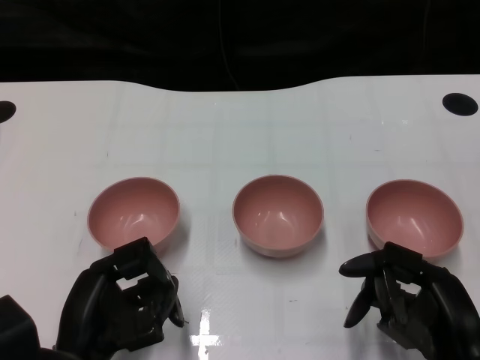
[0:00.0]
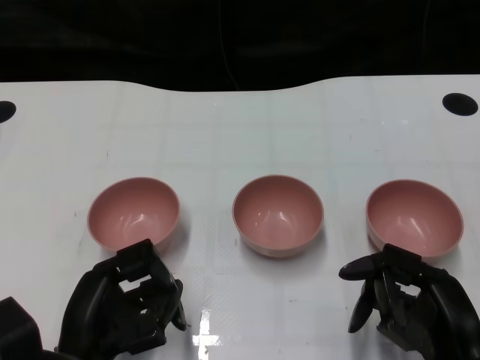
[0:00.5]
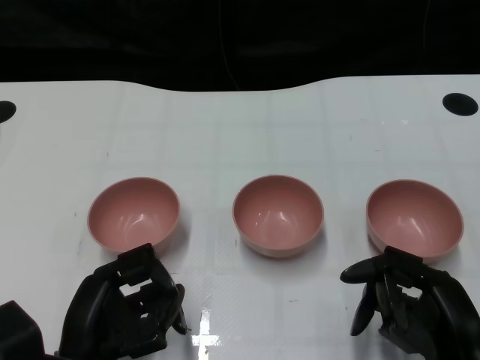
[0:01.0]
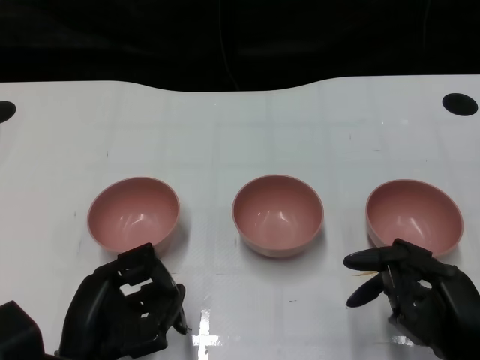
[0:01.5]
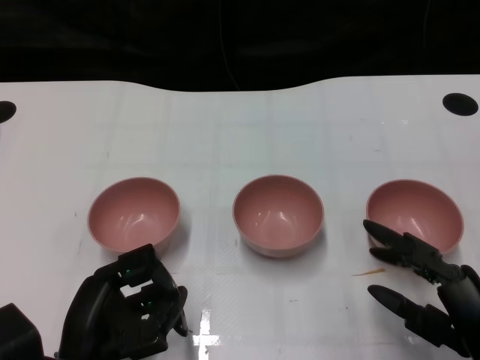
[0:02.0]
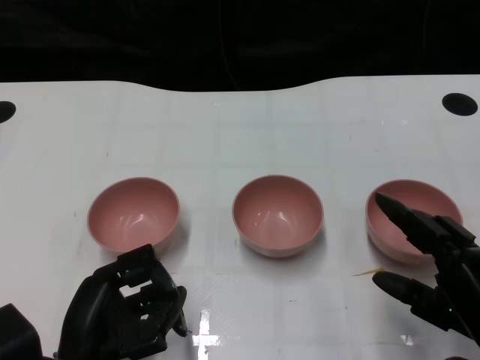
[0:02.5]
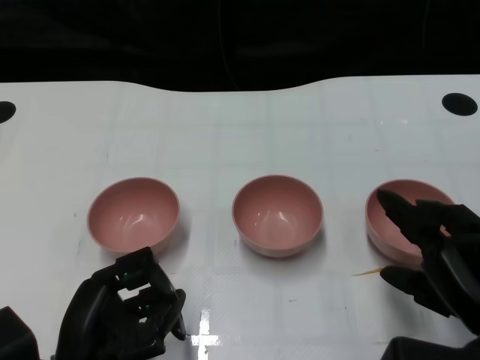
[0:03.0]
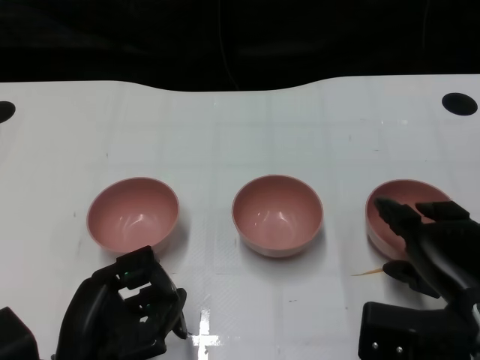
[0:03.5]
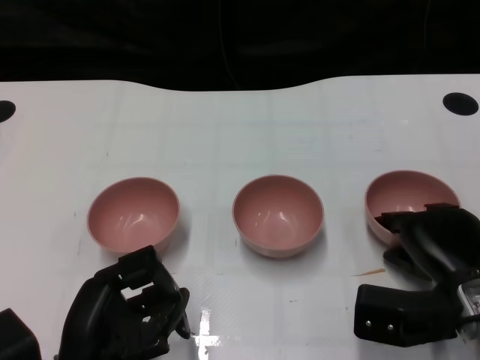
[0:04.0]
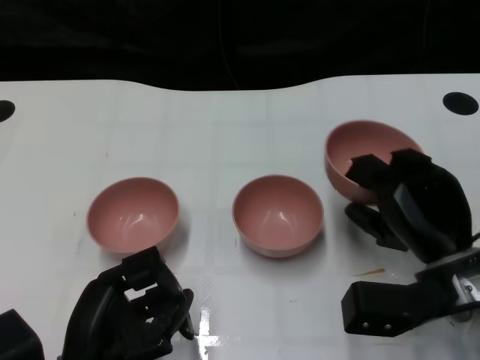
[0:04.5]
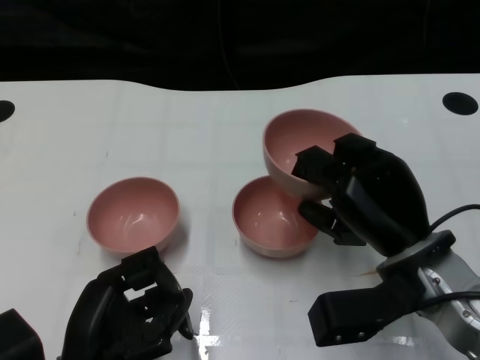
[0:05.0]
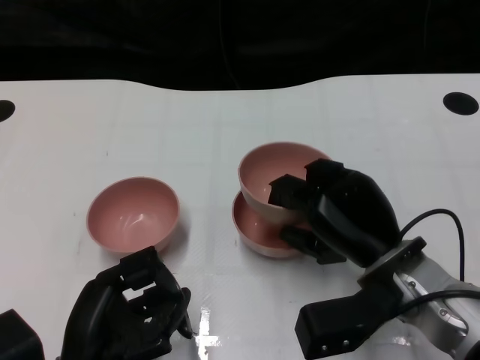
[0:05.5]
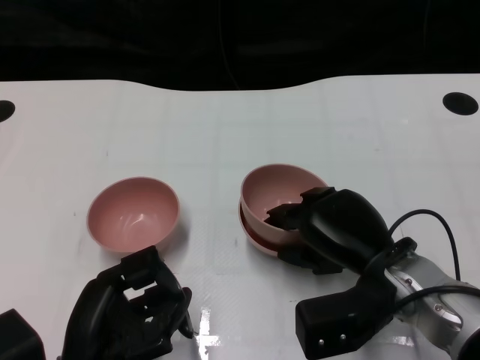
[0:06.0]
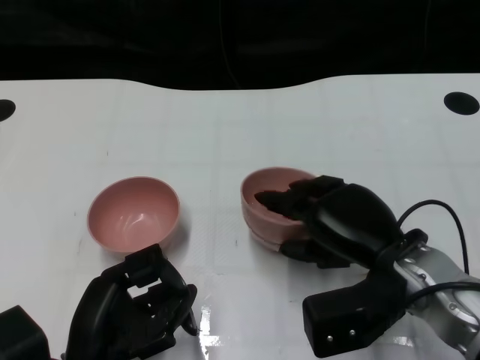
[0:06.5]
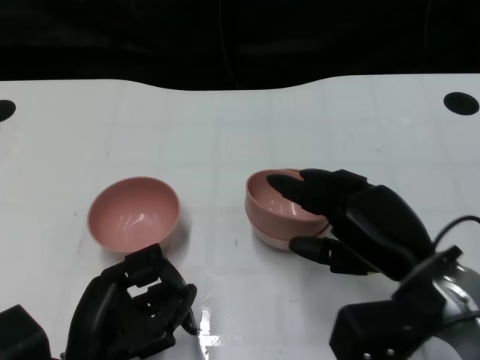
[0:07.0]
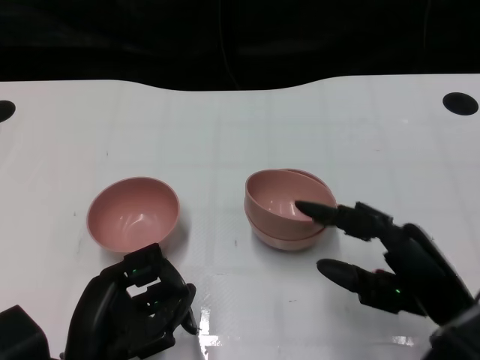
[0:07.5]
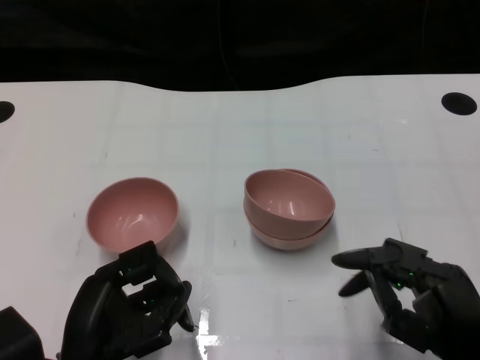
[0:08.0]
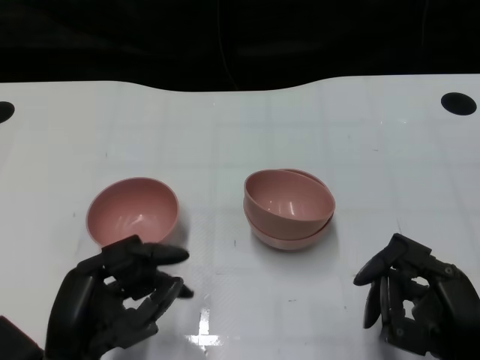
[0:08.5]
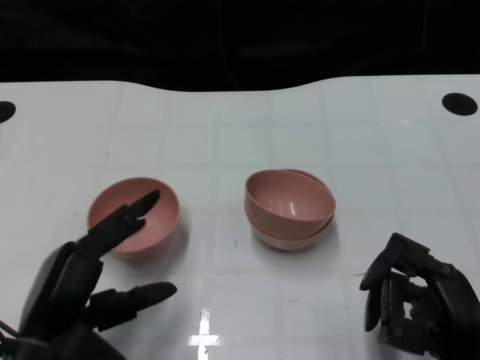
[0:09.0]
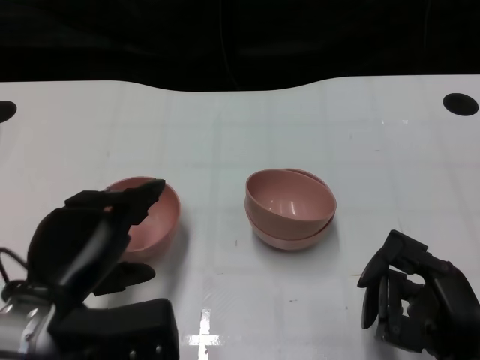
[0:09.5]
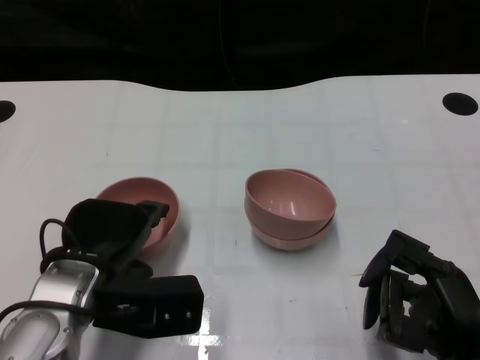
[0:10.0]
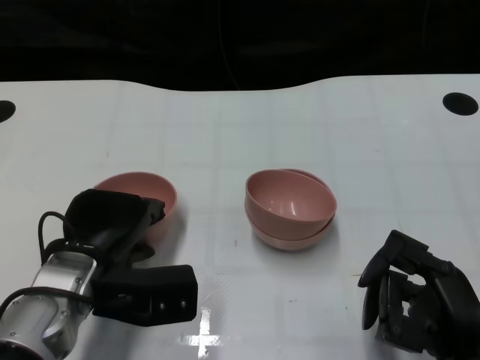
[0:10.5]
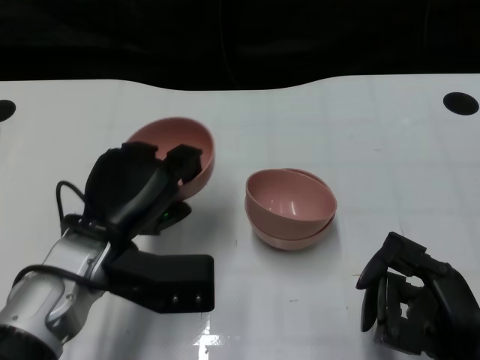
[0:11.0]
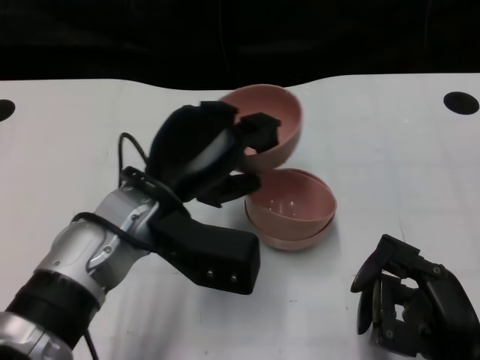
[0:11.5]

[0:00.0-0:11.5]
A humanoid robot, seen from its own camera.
Task of the whole recording: Pick up the bowl on one side of the table and place it on top of the middle bowl, then pick up the bowl on the other side of the table and place it on top of the middle bowls.
Step, 0:01.5 to 0:04.0: Grasp the bowl on the right with the right gripper.
Step, 0:04.5 to 0:07.0: Place the bowl on the right onto the bowl in the middle with right gripper.
Step, 0:07.5 to 0:10.0: Grasp the bowl on the left with the left gripper.
0:02.0 to 0:04.0: The right hand heads forward, covering about 10 cm.
0:04.0 to 0:06.0: The right hand heads to the left, covering approximately 5 cm.
0:06.0 to 0:07.5: The right hand moves backward and to the right, about 10 cm.
0:07.5 to 0:09.5: The right hand changes place by approximately 5 cm. The left hand heads upward, covering approximately 5 cm.
0:09.5 to 0:11.5: The left hand heads to the right and forward, covering about 15 cm.

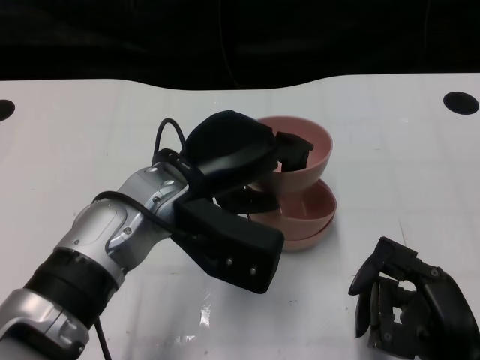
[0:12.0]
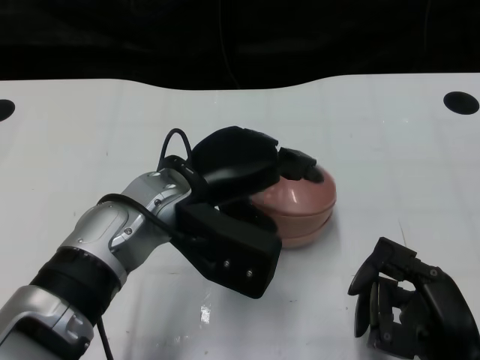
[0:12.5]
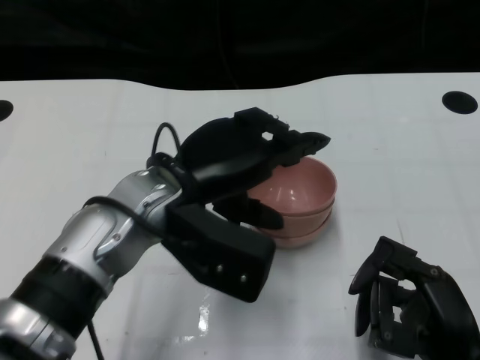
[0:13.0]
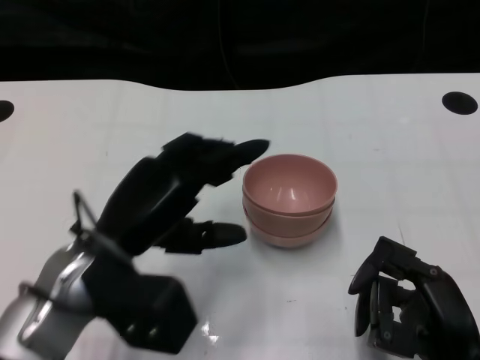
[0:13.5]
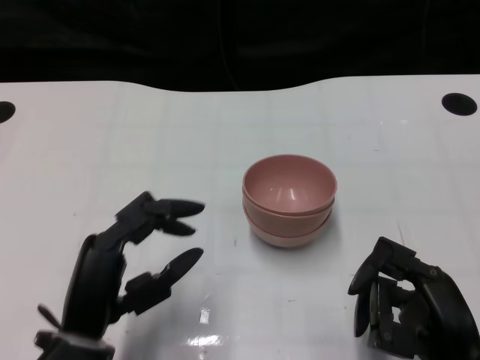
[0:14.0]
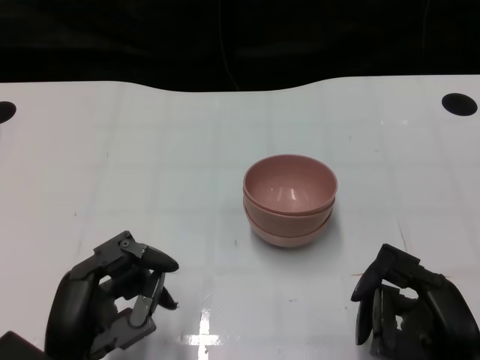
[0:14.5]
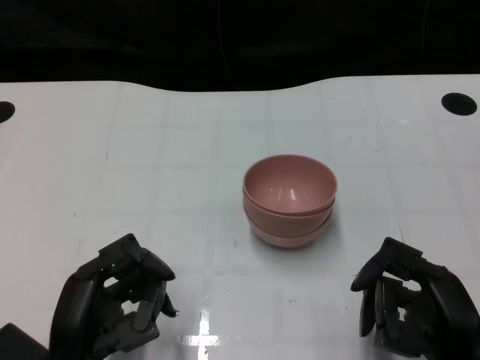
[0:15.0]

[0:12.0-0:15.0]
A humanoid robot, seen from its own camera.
Task of the whole recording: Pick up the bowl on one side of the table and place it on top of the middle bowl, then pick up the bowl on the other side of the table and place it on top of the middle bowls.
0:12.0 to 0:13.5: The left hand goes approximately 5 cm to the left.
0:13.5 to 0:15.0: The left hand goes some 10 cm backward and downward.

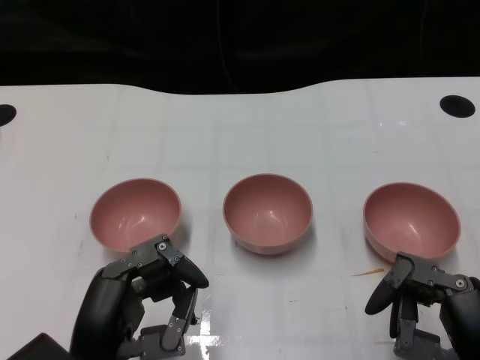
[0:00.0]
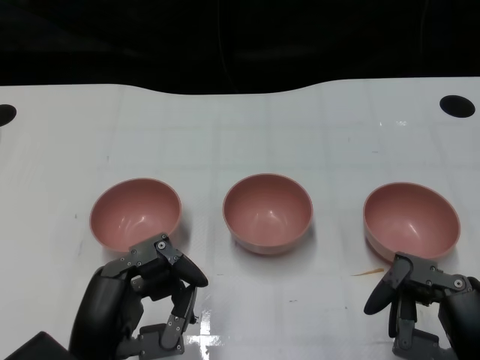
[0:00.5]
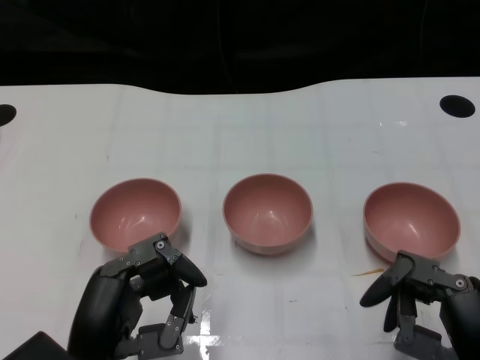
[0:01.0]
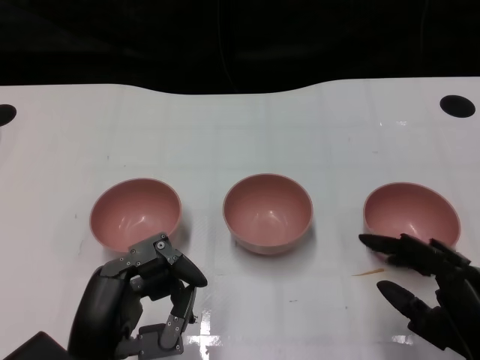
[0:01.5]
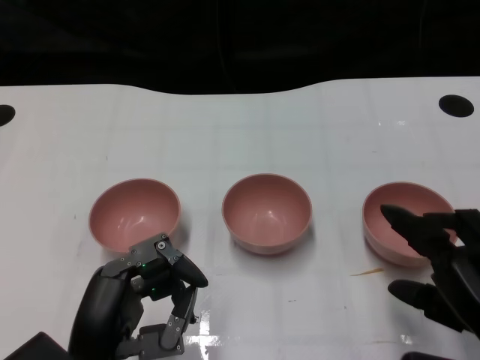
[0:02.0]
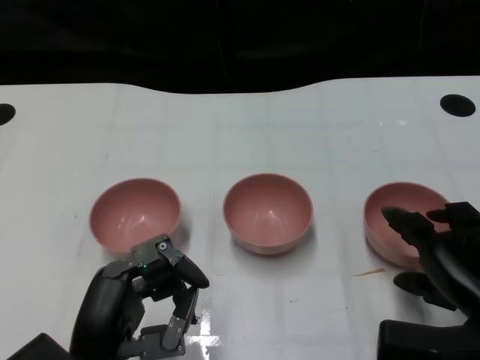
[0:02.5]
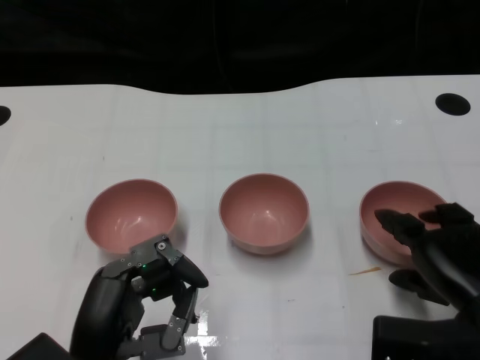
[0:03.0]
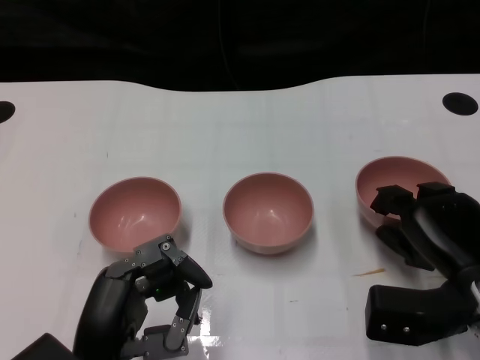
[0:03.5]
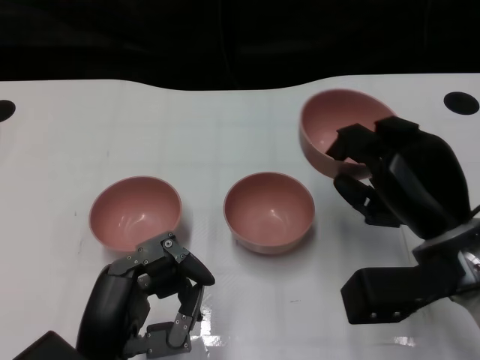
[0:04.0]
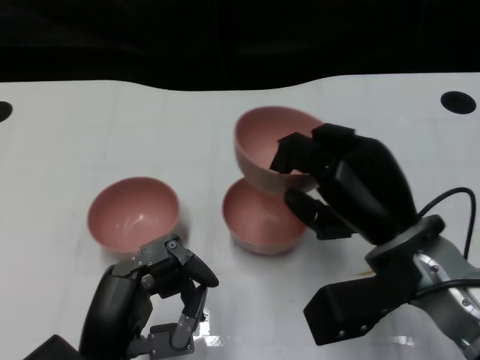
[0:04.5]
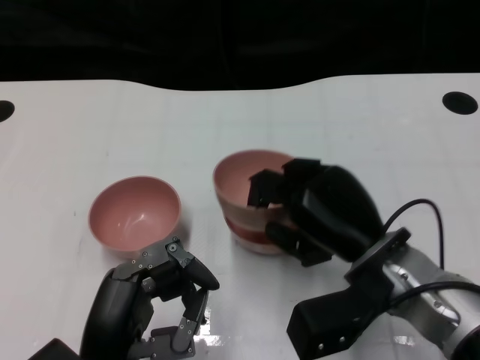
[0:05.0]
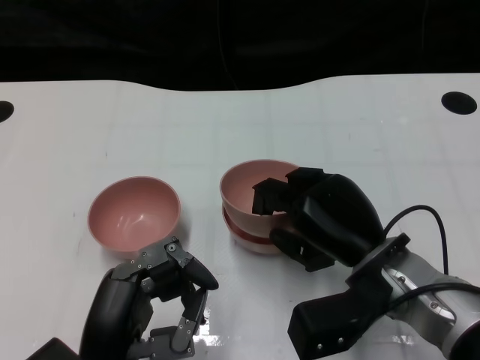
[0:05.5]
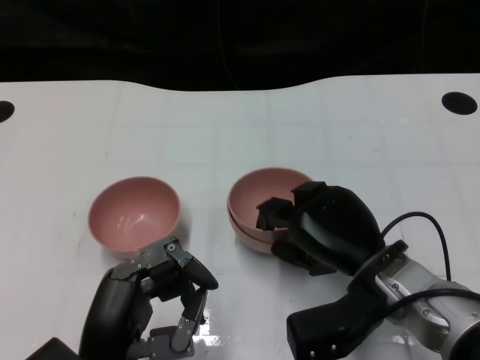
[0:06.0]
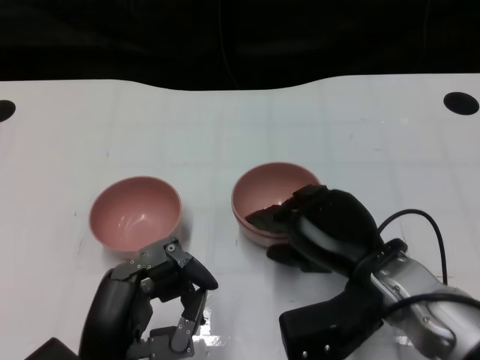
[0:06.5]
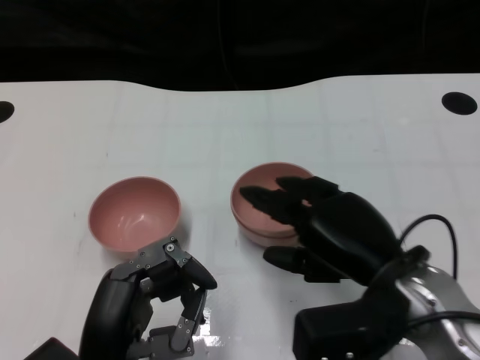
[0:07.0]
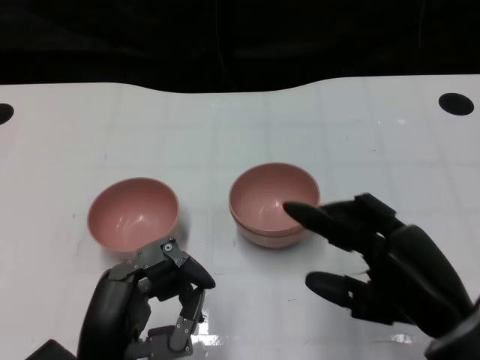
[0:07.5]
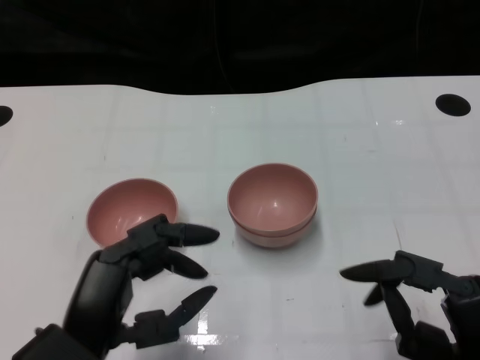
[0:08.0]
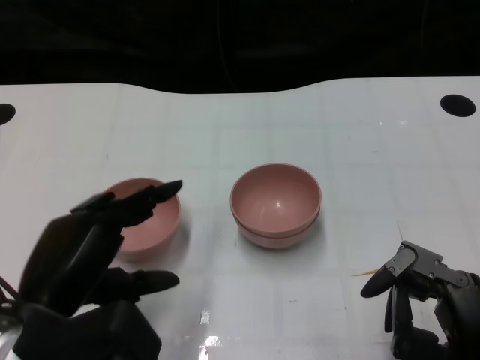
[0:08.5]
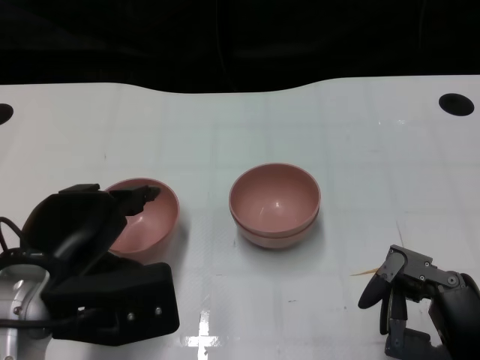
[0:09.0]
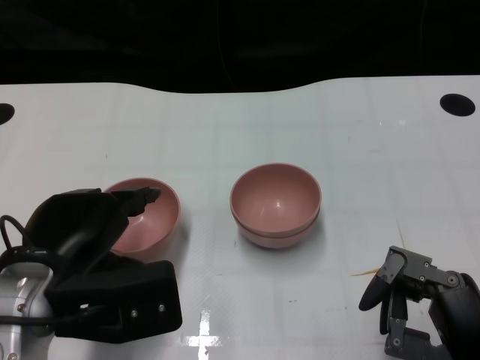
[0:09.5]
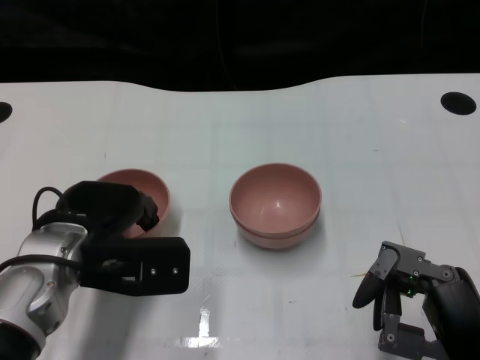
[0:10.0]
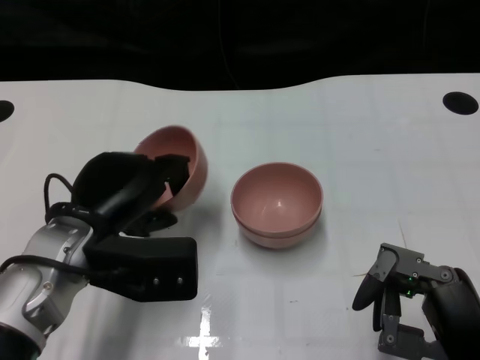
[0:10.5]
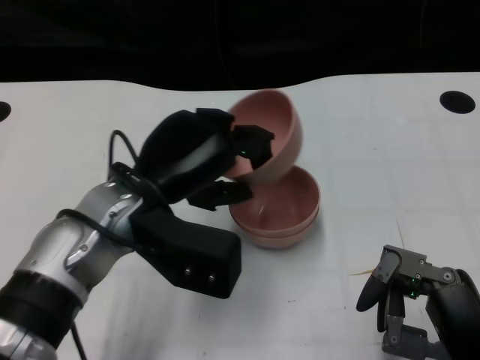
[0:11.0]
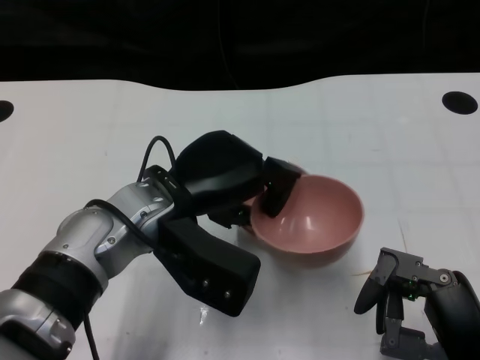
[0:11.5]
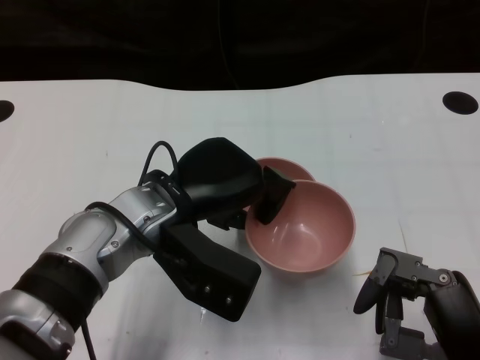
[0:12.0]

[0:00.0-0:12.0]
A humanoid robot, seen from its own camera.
Task of the whole recording: Pick up the bowl on one side of the table and place it on top of the middle bowl, then pick up the bowl on the other side of the table and place it on top of the middle bowls.
Step, 0:01.0 to 0:03.5: Grasp the bowl on the right with the right gripper.
Step, 0:04.0 to 0:07.0: Place the bowl on the right onto the bowl in the middle with right gripper.
Step, 0:07.5 to 0:10.0: Grasp the bowl on the left with the left gripper.
0:02.0 to 0:04.0: The right hand goes roughly 10 cm forward.
0:04.0 to 0:06.0: The right hand moves to the left, about 5 cm.
0:06.0 to 0:08.0: The right hand is displaced backward and to the right by some 15 cm.
0:08.0 to 0:10.0: The left hand shifts some 10 cm forward.
0:10.0 to 0:12.0: The left hand moves to the right, roughly 10 cm.
